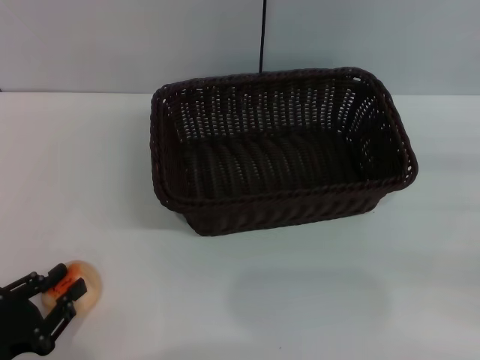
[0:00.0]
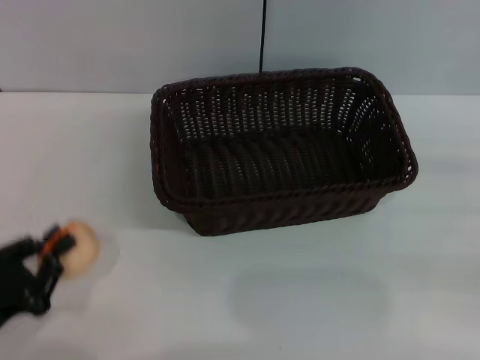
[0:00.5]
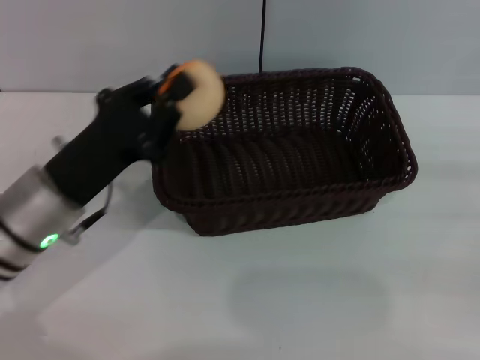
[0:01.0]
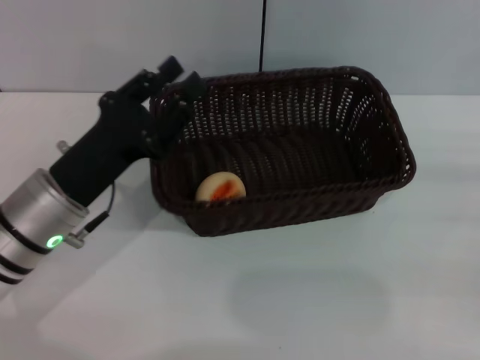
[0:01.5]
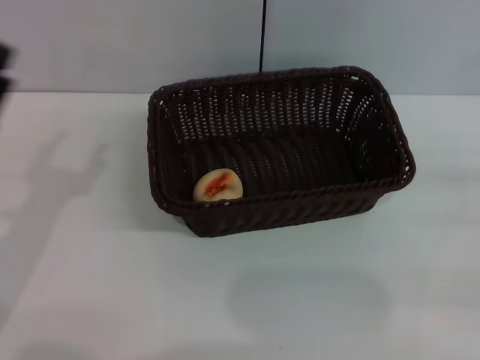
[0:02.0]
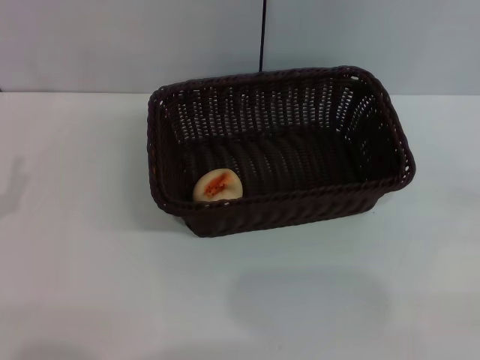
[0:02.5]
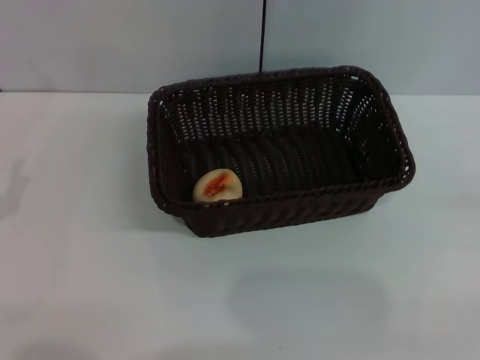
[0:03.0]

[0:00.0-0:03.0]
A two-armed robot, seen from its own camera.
Step, 0:01.0 to 0:01.5: Place the egg yolk pastry into the basket with the left gripper.
0:00.0 to 0:01.5: The left gripper shifts roughly 20 cm forward, to the right and upward, and closes up.
0:01.5 to 0:03.0: The left gripper shifts approximately 15 cm to the left and backward, and opens. The right gripper shifts by approximately 5 cm.
